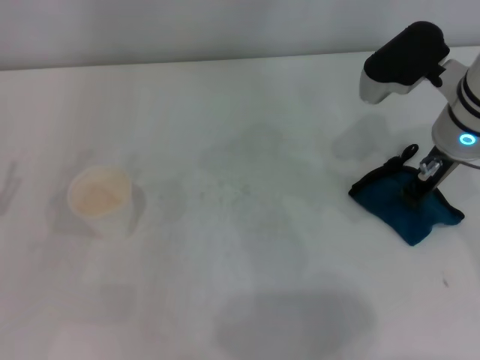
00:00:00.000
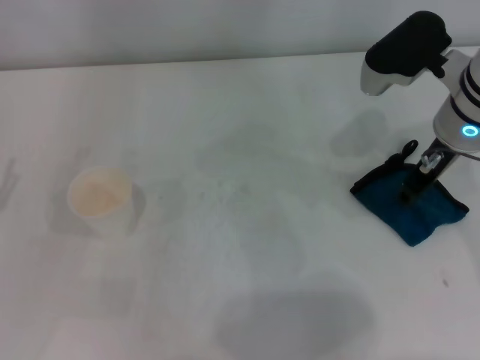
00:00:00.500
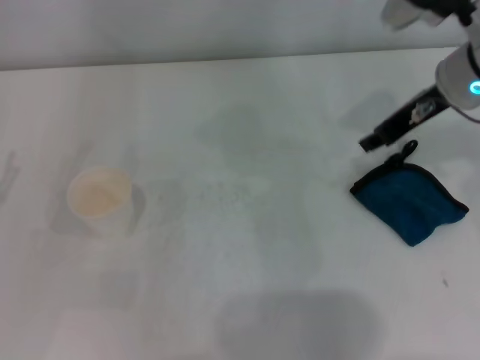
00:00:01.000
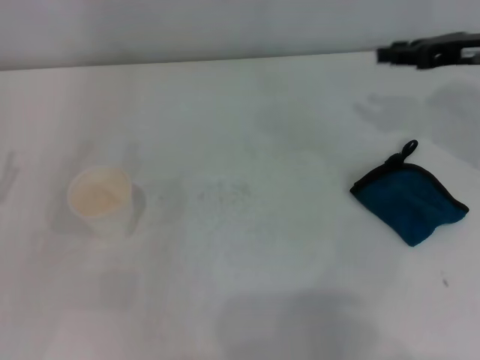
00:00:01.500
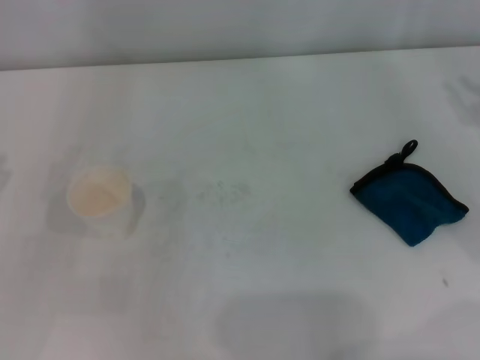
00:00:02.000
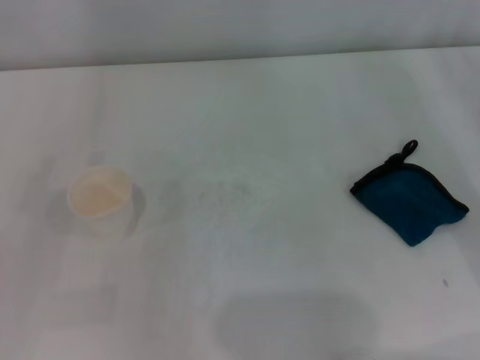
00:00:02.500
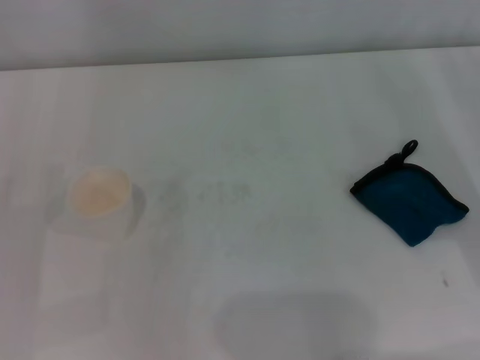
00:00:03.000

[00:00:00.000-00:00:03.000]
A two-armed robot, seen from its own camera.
00:00:00.000 to 00:00:01.500: The right gripper travels to the right by about 10 cm, and opens up.
00:00:01.500 to 00:00:03.000: The right gripper travels backward, downward and to the right by roughly 15 cm.
